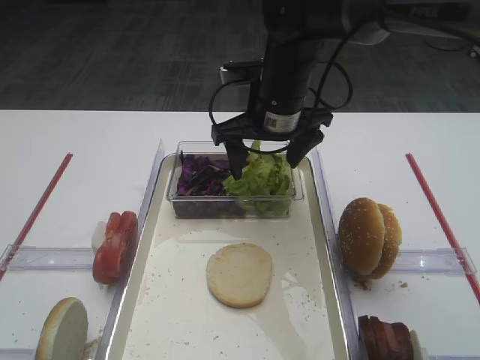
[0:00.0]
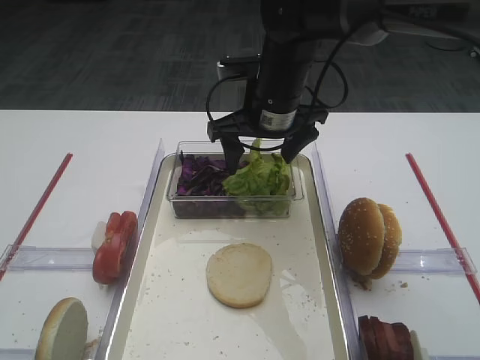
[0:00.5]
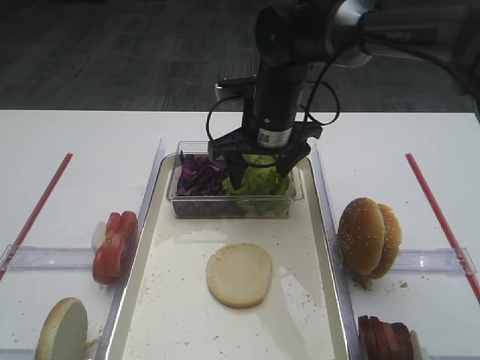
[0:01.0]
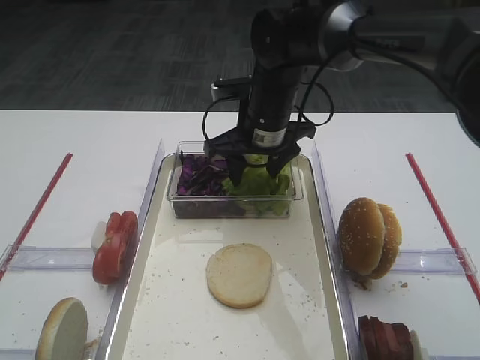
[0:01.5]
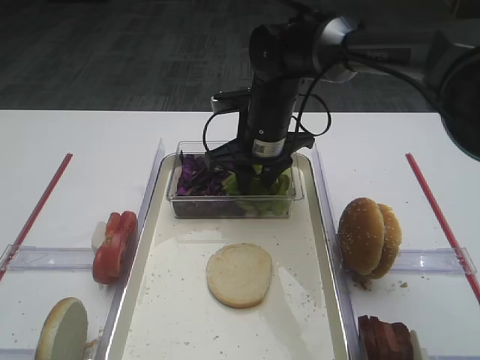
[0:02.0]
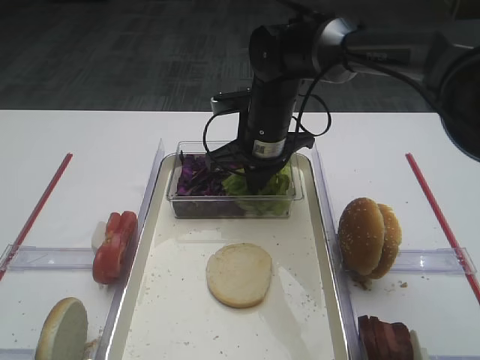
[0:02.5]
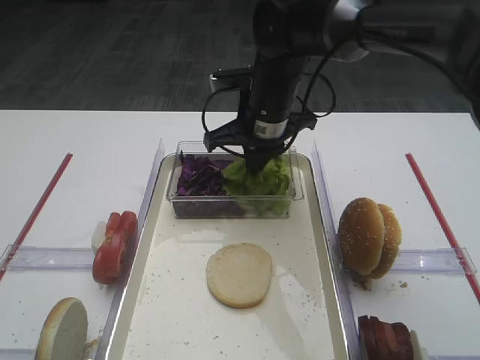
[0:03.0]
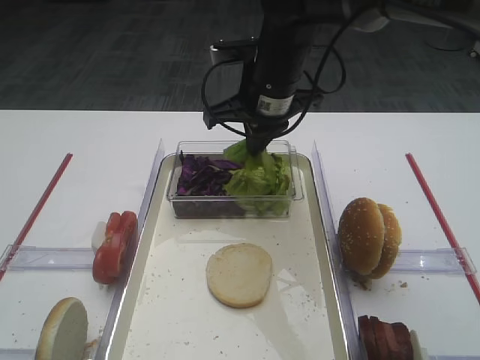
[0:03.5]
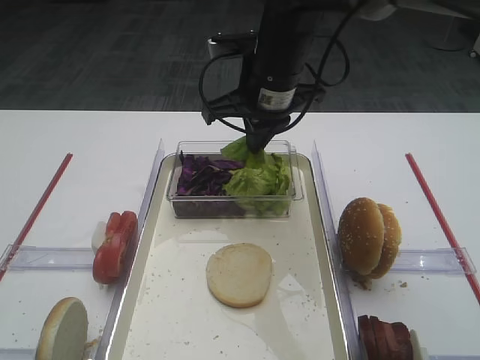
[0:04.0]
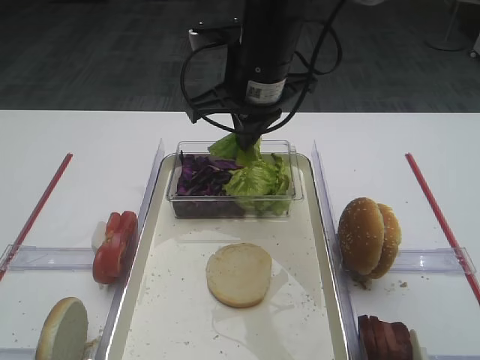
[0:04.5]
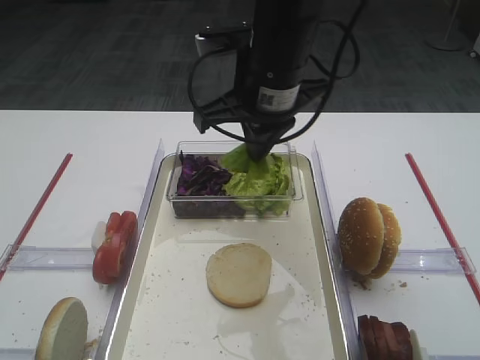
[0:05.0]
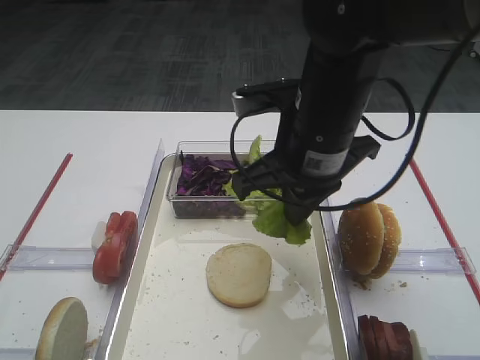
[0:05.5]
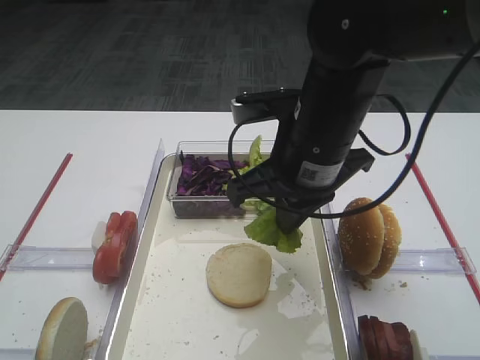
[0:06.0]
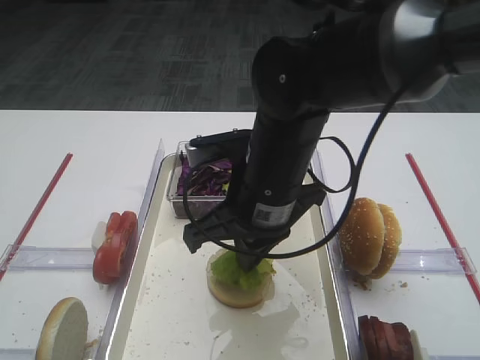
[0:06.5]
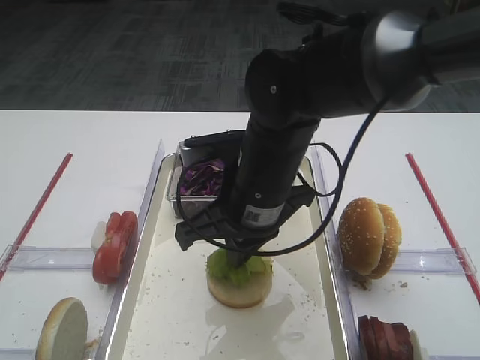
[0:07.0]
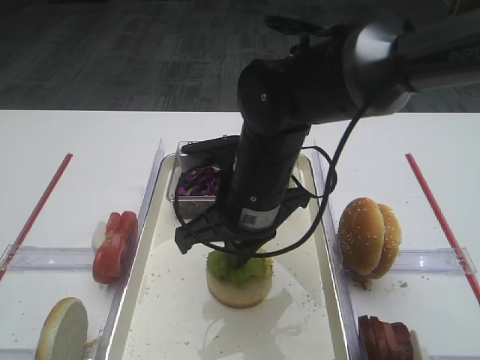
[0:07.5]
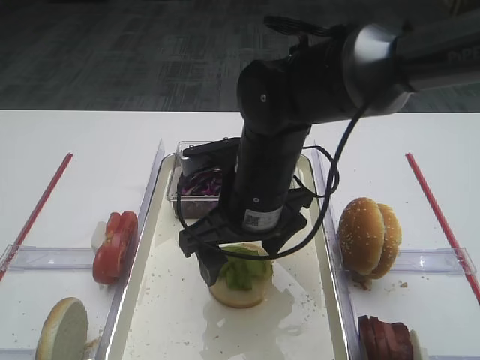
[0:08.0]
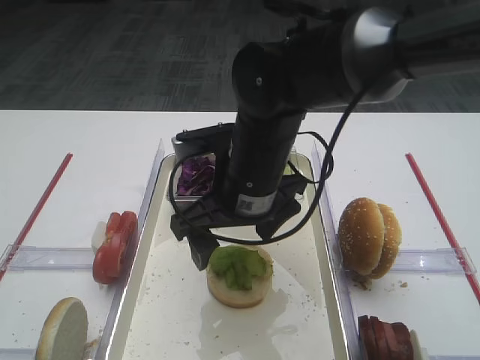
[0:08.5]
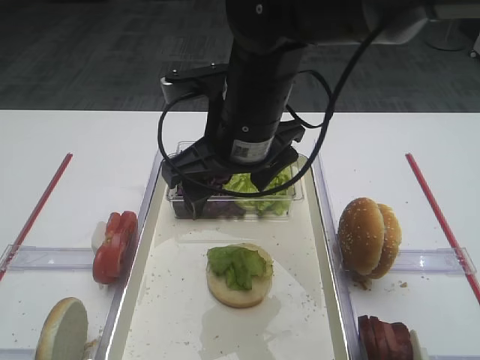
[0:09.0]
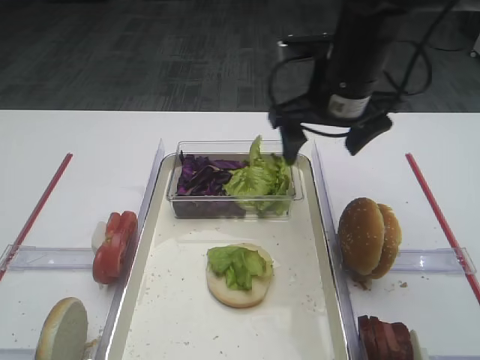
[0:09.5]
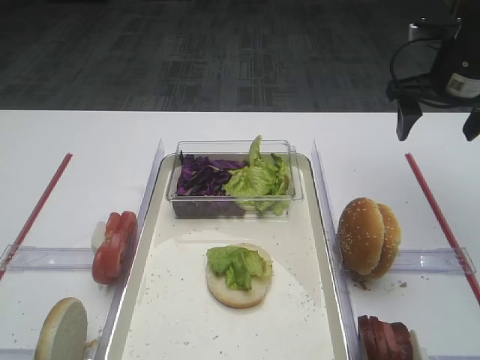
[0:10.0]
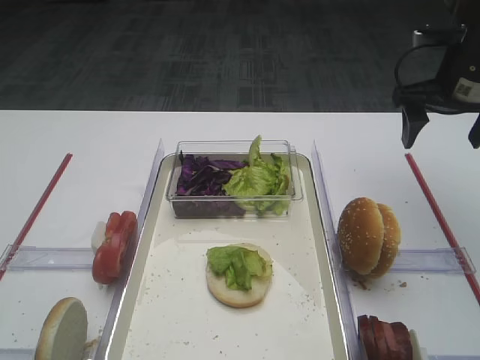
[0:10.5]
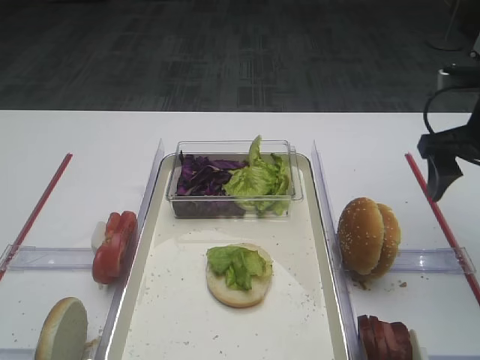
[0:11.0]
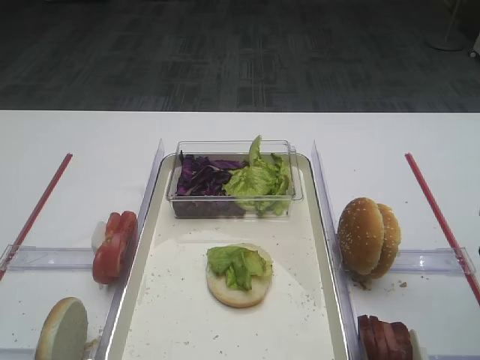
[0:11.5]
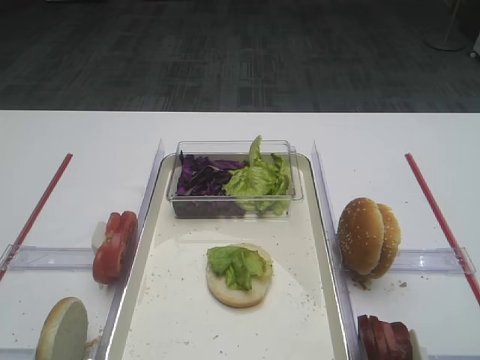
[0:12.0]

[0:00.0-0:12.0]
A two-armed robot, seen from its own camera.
Step, 0:00.0 to 0:04.5: Pick up the lettuce leaf with the right gripper.
Step, 0:05.5 to 0:08.5: Place the lettuce leaf on the bread slice with the right gripper.
0:00.0 to 0:02.0: The right gripper heads downward, covering approximately 5 cm, and closes.
0:02.0 to 0:04.0: The right gripper travels upward by about 10 cm, and closes.
0:04.0 to 0:06.0: The right gripper is displaced backward by some 10 cm.
0:06.0 to 0:08.0: The right gripper moves downward and to the left, some 10 cm, and opens.
0:08.0 to 0:10.0: The right gripper travels to the right and forward by approximately 25 cm.
0:10.0 to 0:12.0: The right gripper goes roughly 30 cm backward.

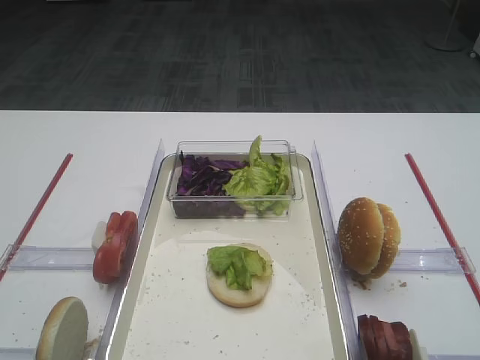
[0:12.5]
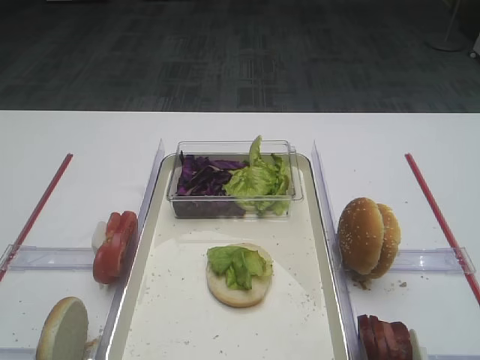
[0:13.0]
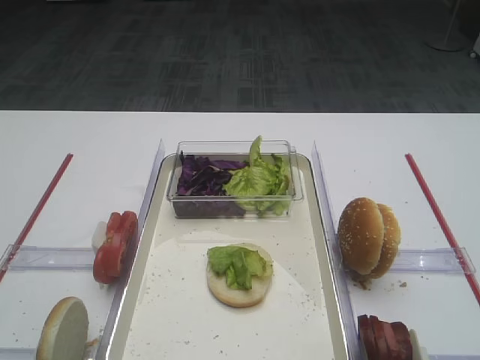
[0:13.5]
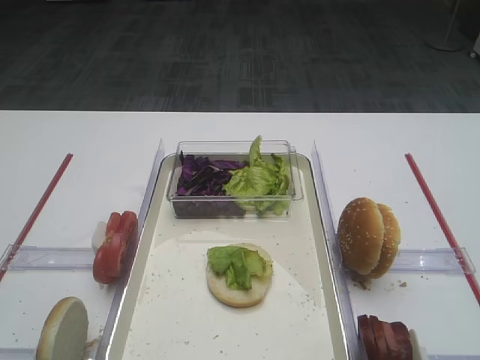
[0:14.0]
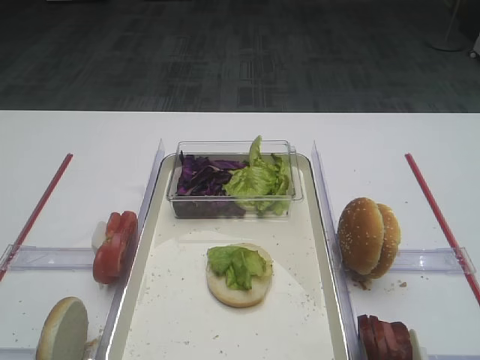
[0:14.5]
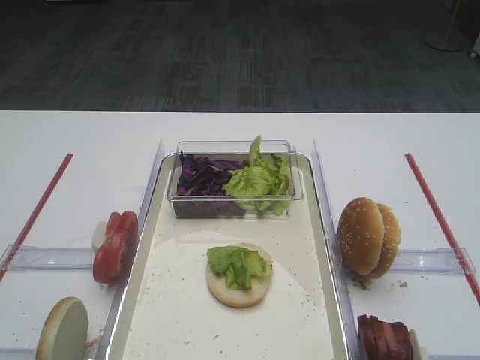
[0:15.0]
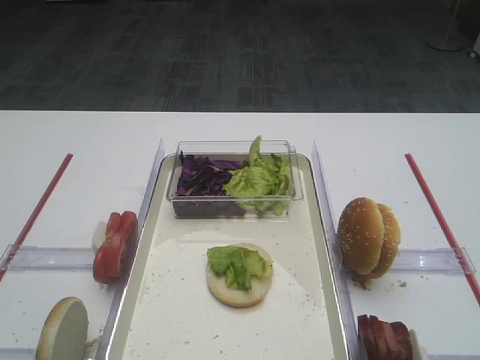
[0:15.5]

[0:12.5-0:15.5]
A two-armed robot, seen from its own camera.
0:14.0 to 0:15.5: Both grippers stay about where they are.

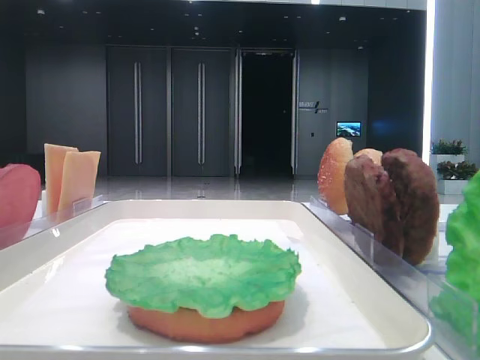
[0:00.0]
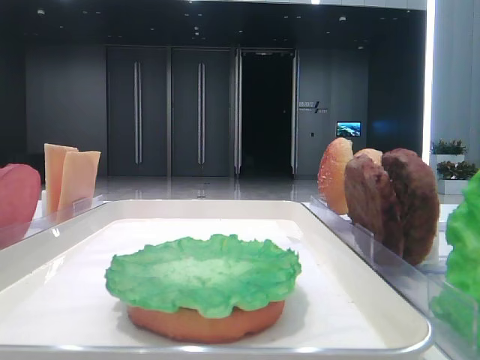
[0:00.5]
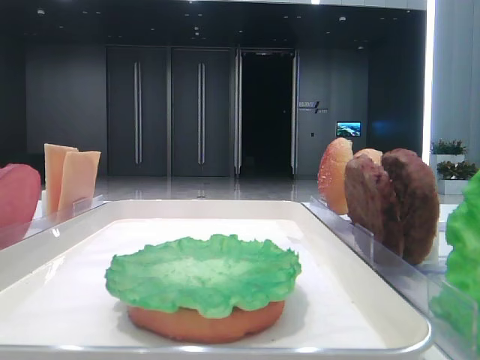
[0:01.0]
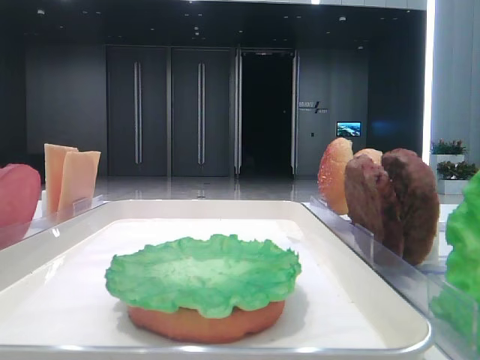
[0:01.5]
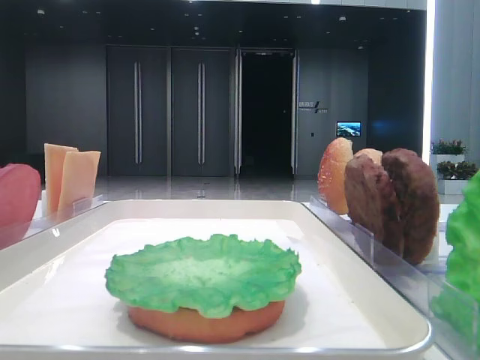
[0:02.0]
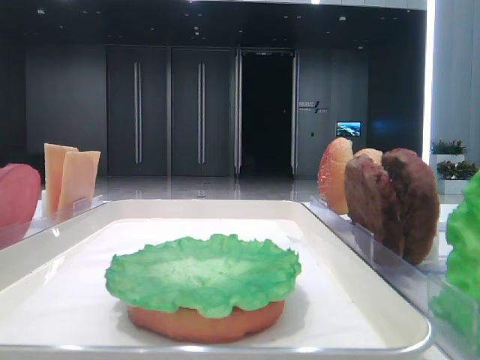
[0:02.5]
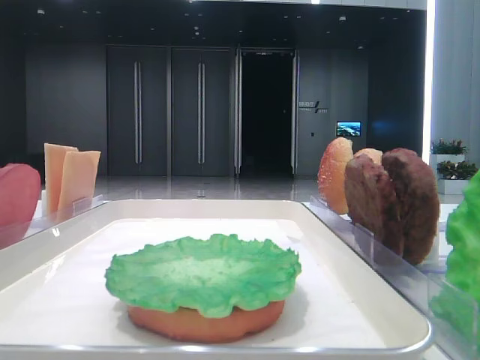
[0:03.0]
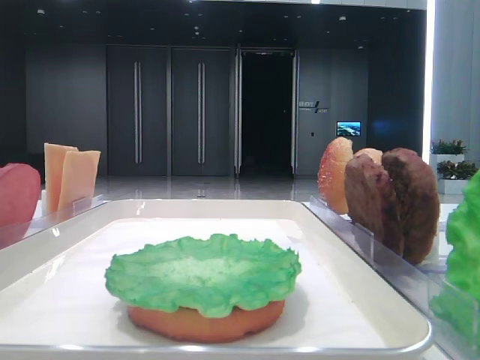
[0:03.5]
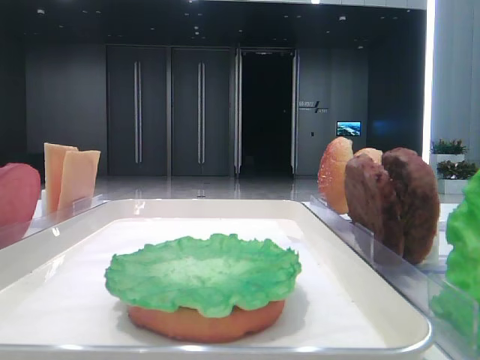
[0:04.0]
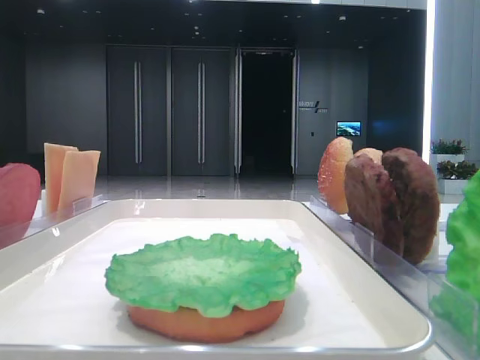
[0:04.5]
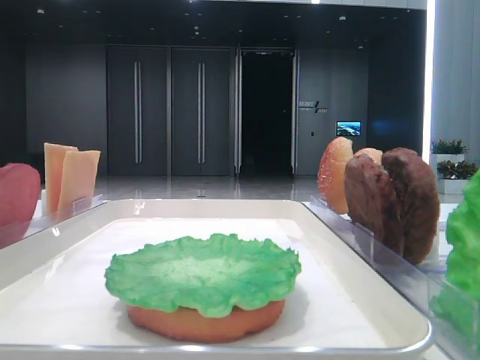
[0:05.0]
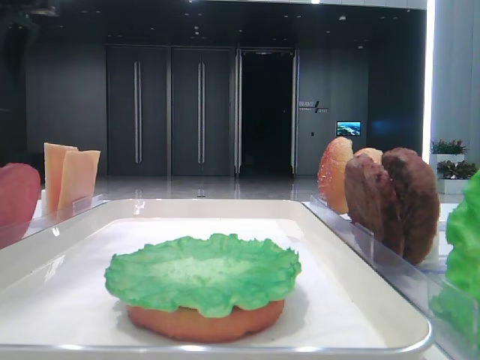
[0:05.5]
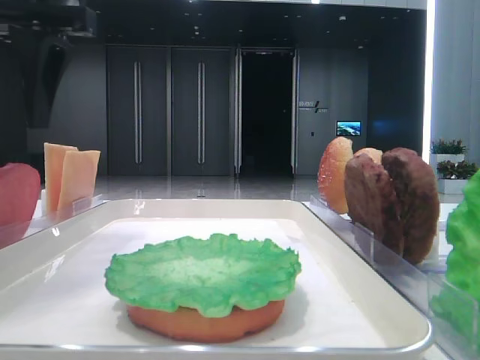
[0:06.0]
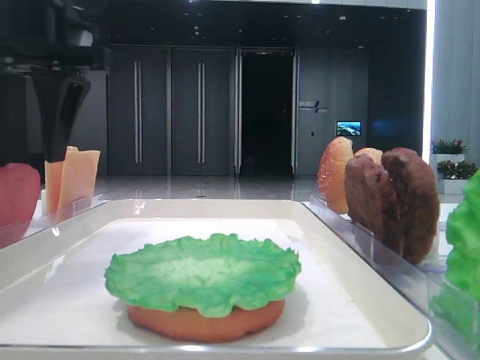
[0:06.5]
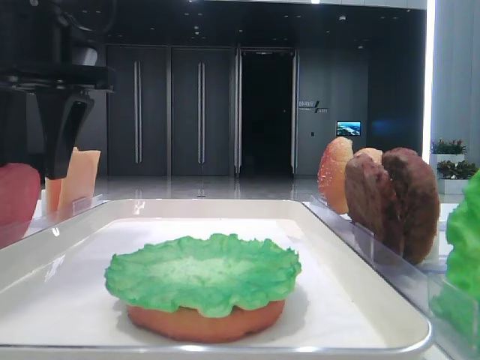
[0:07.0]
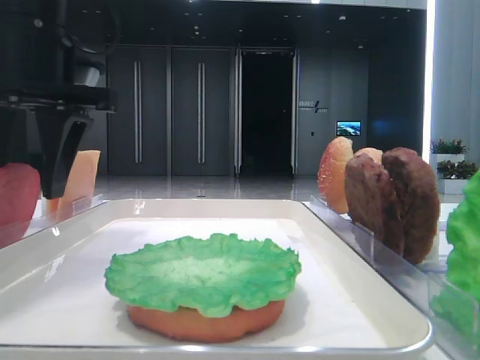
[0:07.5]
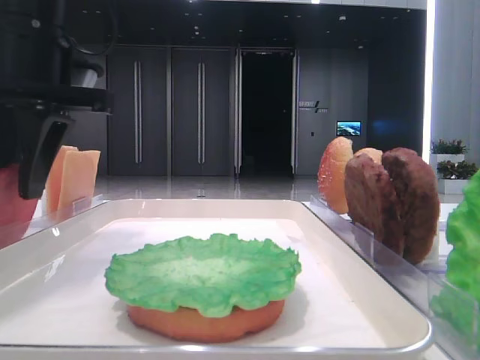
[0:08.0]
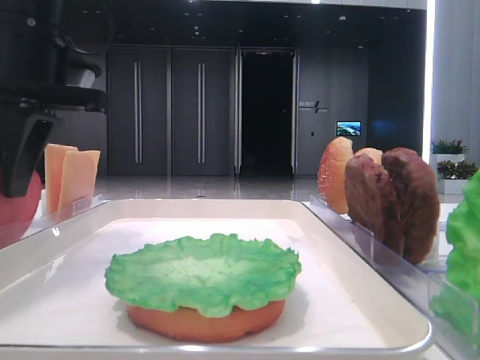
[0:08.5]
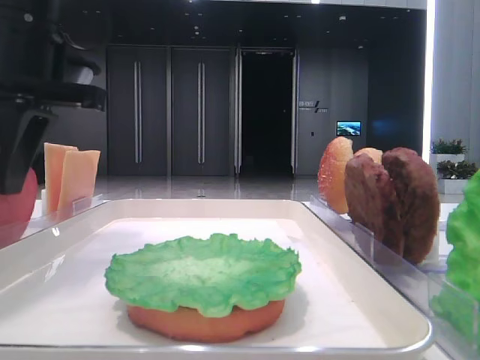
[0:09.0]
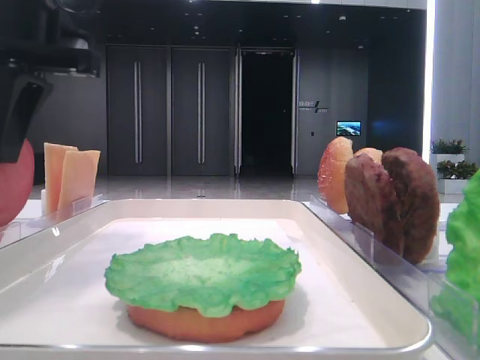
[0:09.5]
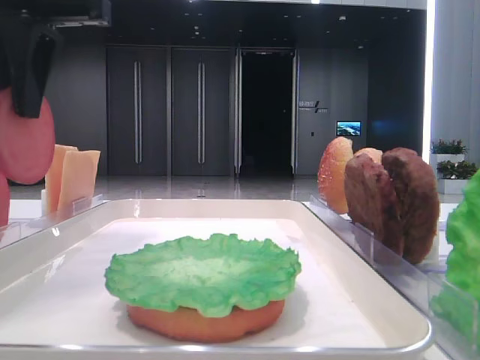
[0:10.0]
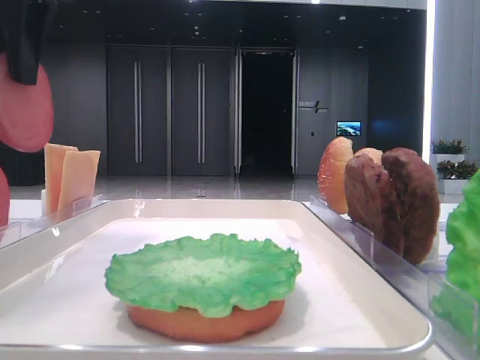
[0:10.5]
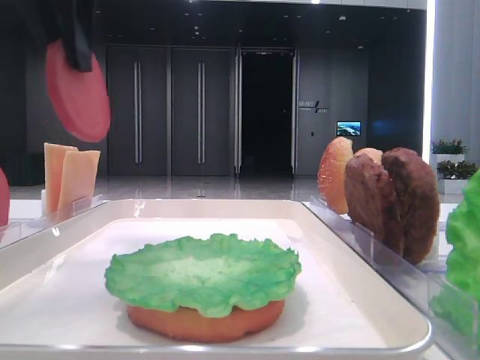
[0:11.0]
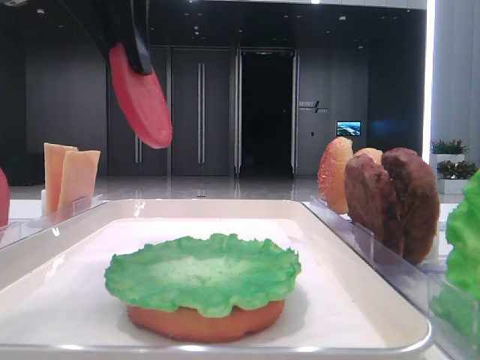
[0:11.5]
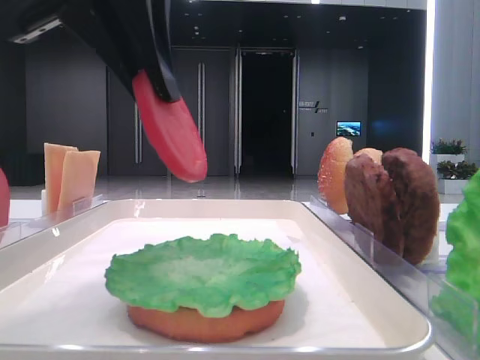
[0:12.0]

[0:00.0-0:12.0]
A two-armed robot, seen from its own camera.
Step, 0:00.0 to 0:08.5: Pick up the tomato slice with the left hand.
0:04.0 to 0:06.0: The left gripper heads to the right and downward, covering some 10 cm.
0:06.0 to 0:08.0: The left gripper heads downward, covering some 5 cm, and closes up.
0:08.0 to 0:10.0: The left gripper moves upward, roughly 5 cm, and closes its fingers.
0:10.0 to 0:12.0: The left gripper moves to the right and backward, about 10 cm.
